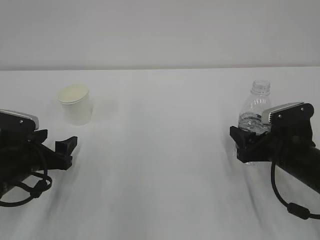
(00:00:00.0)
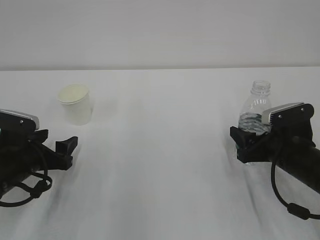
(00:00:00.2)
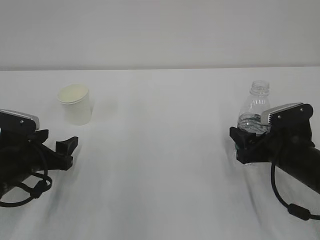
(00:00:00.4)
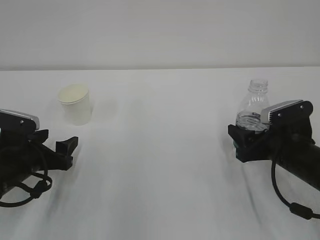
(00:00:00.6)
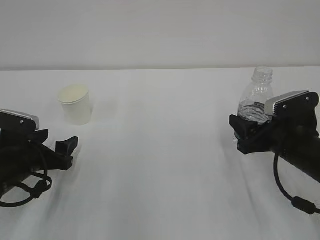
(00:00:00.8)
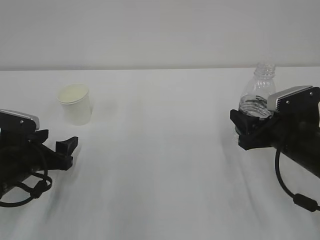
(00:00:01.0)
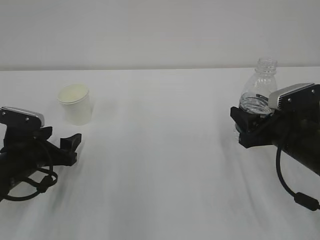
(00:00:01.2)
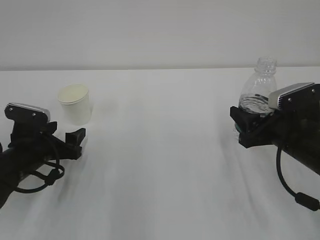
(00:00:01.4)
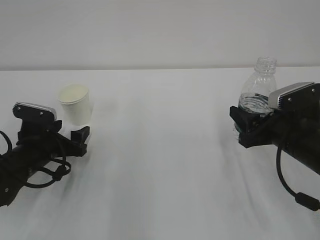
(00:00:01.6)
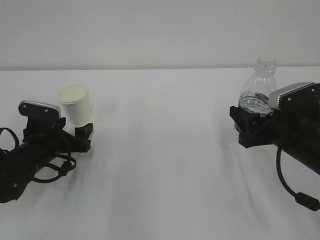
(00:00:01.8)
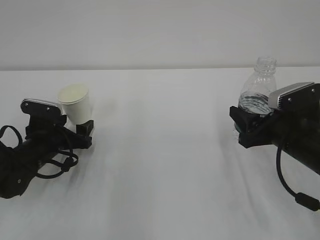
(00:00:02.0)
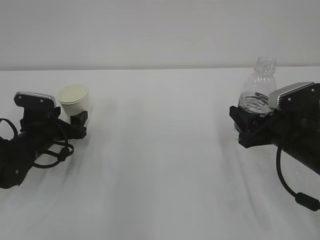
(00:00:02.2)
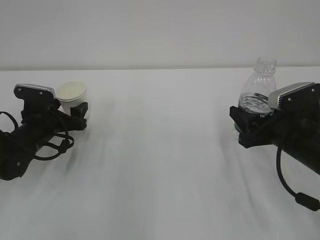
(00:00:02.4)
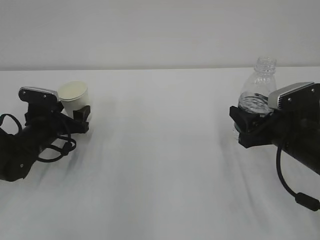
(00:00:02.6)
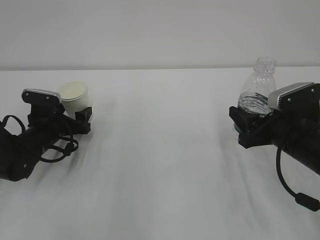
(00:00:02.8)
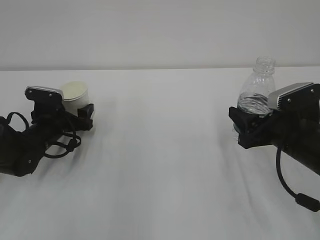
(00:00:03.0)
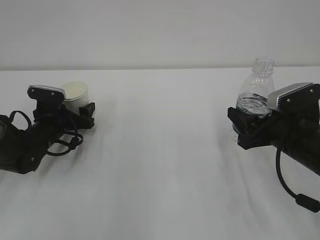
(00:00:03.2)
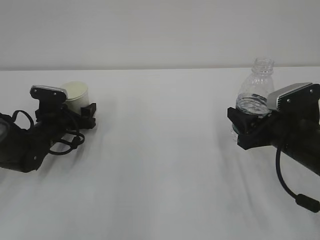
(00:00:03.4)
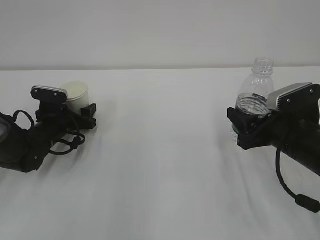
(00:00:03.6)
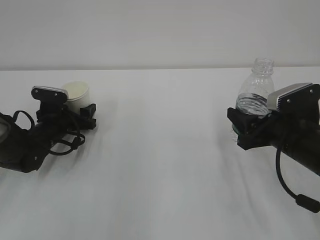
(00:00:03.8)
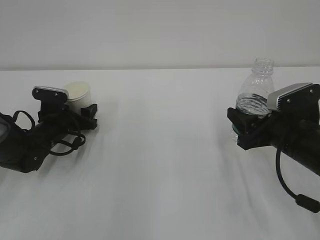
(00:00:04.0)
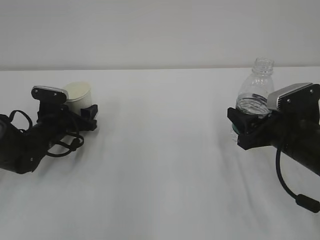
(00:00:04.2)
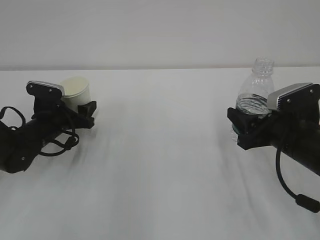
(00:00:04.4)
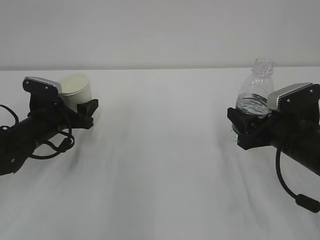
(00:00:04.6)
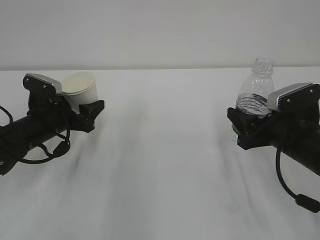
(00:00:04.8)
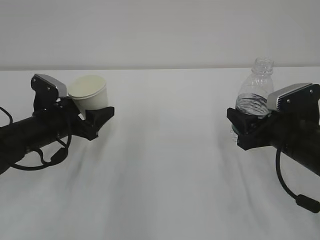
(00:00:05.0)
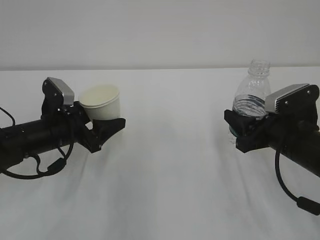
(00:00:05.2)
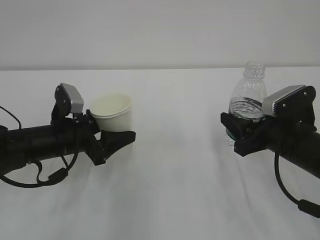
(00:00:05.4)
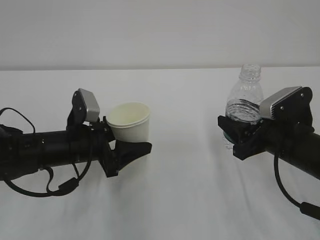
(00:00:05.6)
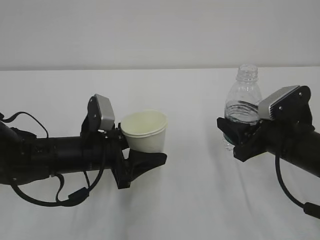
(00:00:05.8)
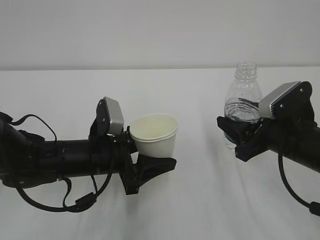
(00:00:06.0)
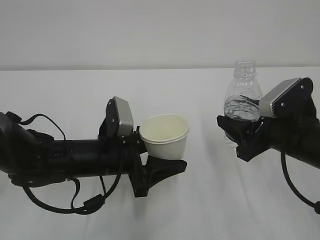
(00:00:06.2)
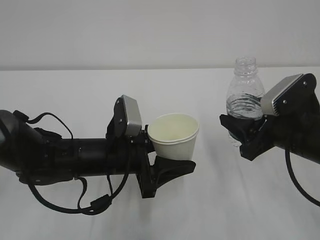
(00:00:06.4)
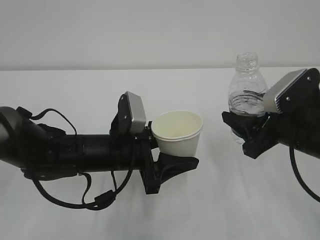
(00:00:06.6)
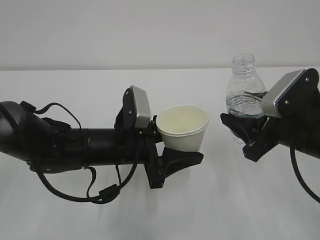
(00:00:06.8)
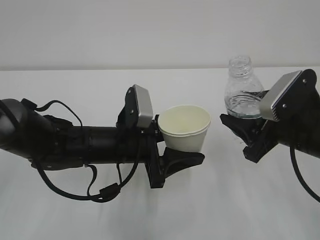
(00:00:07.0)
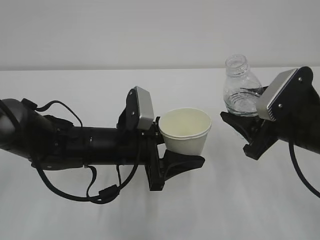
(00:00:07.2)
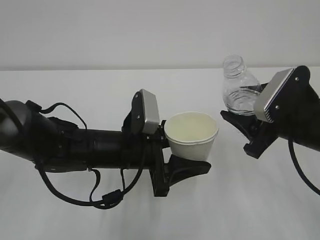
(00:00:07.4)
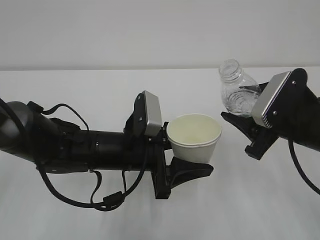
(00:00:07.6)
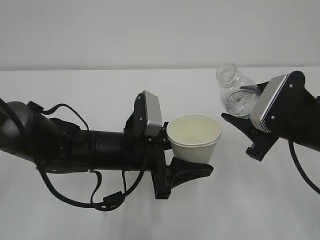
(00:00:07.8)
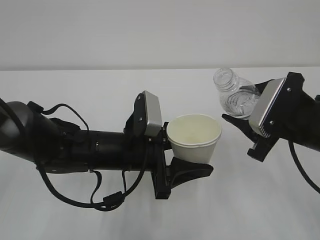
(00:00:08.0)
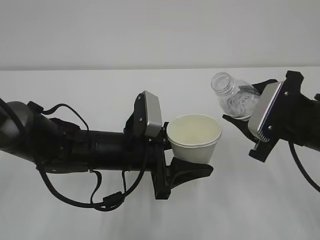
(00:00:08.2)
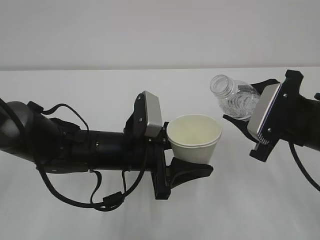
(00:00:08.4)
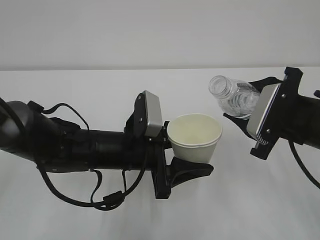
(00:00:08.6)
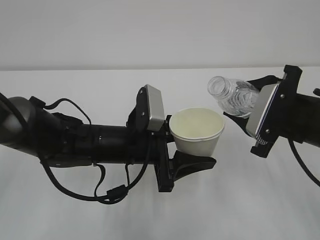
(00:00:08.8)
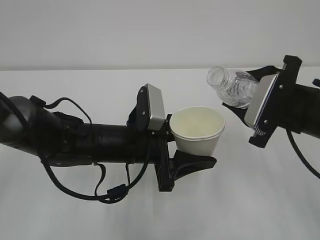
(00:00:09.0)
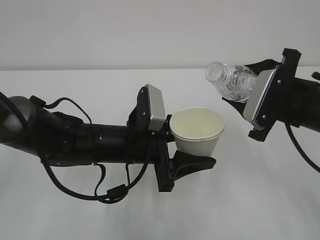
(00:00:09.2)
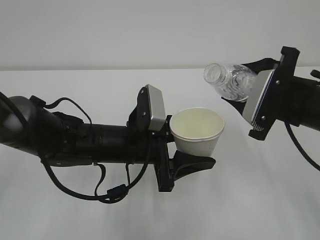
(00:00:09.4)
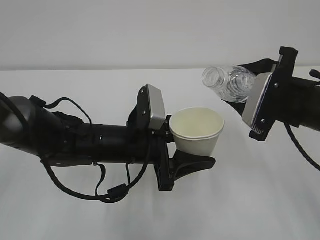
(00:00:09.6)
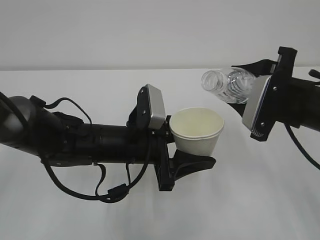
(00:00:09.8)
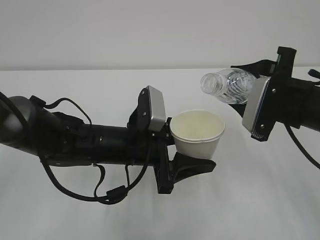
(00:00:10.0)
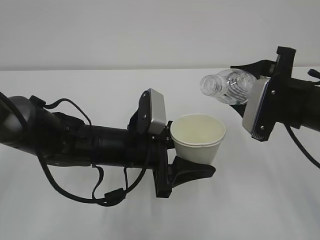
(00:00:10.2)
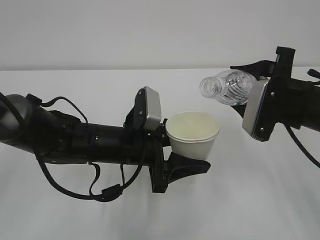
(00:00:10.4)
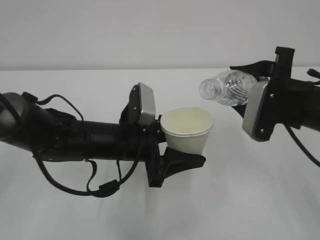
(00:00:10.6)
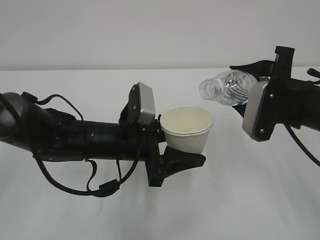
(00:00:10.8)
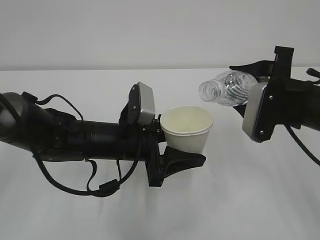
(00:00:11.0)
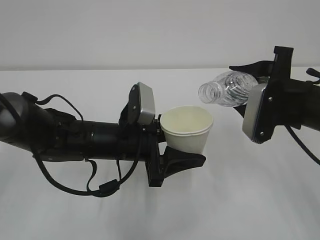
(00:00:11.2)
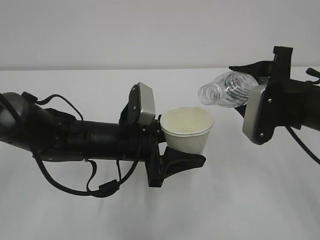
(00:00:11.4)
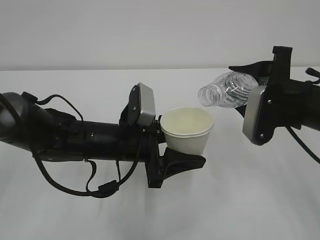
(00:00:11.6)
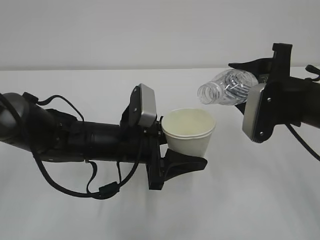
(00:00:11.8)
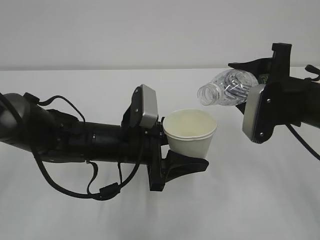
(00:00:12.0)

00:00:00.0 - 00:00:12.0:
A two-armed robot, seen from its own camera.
00:00:00.0 - 00:00:01.6: The left gripper changes place by some 5 cm.
00:00:01.6 - 00:00:03.0: The left gripper heads forward, covering about 10 cm.
00:00:03.0 - 00:00:04.4: The left gripper closes its fingers.
00:00:04.4 - 00:00:06.0: The left gripper is displaced to the right and backward by roughly 15 cm.
00:00:06.0 - 00:00:07.6: The left gripper travels to the right by some 5 cm.
00:00:09.0 - 00:00:10.4: There are only small adjustments of the grippers.
00:00:10.4 - 00:00:12.0: There are only small adjustments of the grippers.

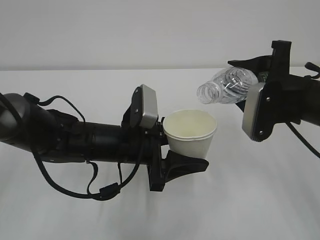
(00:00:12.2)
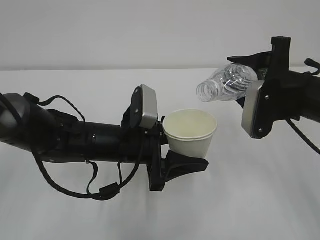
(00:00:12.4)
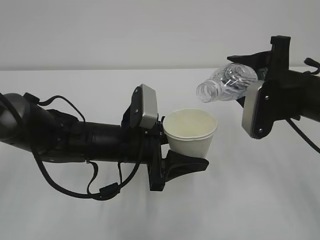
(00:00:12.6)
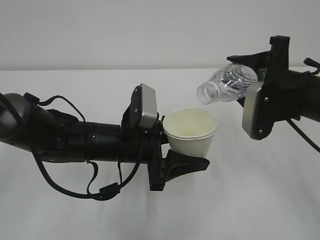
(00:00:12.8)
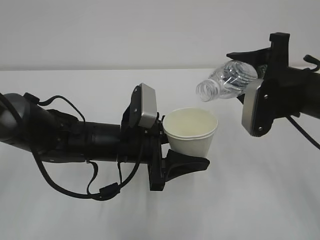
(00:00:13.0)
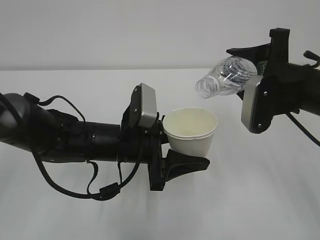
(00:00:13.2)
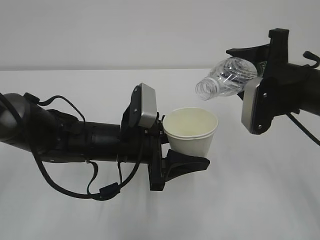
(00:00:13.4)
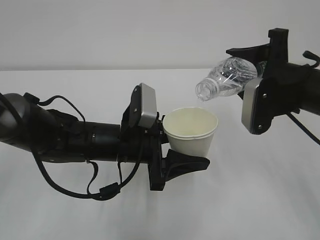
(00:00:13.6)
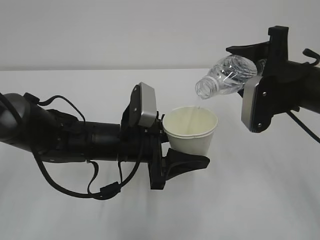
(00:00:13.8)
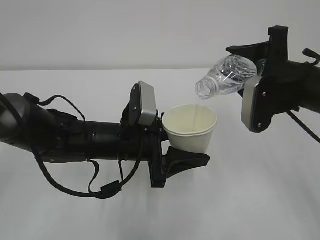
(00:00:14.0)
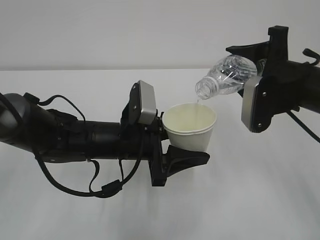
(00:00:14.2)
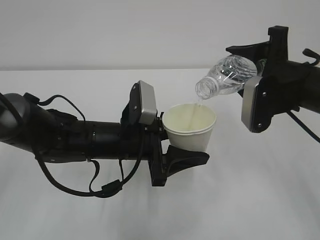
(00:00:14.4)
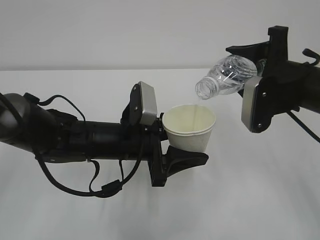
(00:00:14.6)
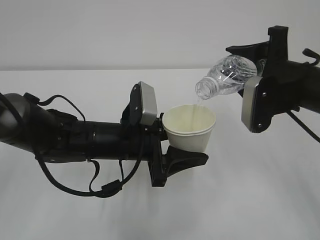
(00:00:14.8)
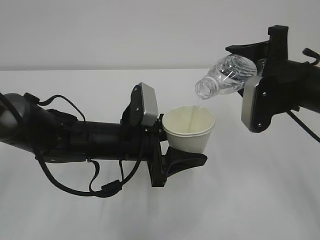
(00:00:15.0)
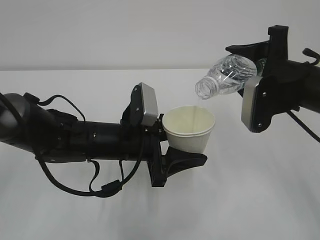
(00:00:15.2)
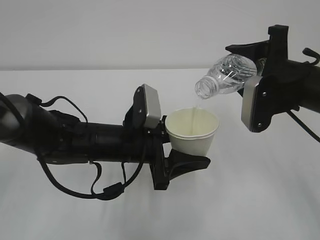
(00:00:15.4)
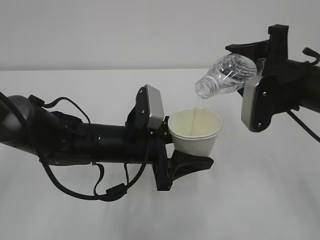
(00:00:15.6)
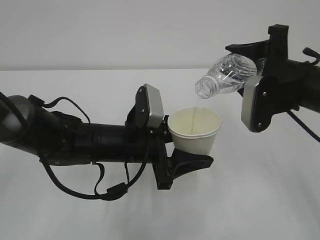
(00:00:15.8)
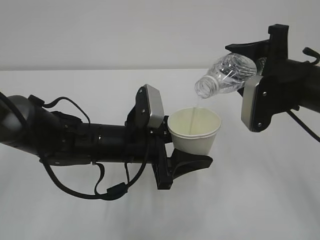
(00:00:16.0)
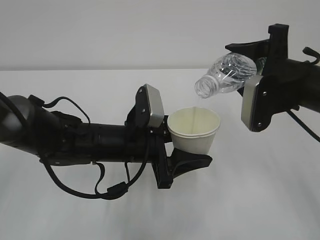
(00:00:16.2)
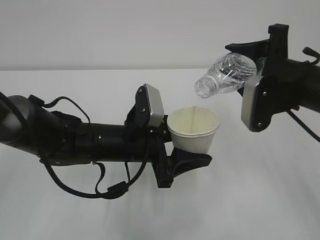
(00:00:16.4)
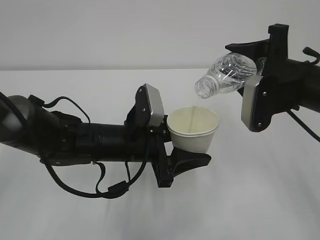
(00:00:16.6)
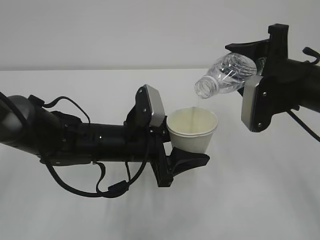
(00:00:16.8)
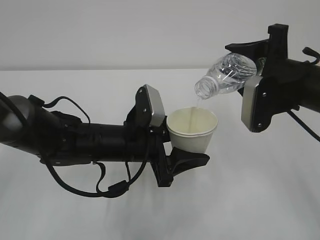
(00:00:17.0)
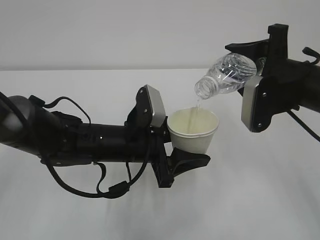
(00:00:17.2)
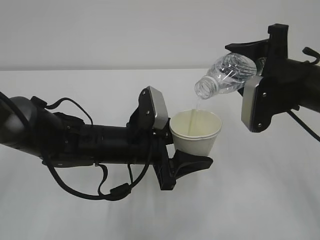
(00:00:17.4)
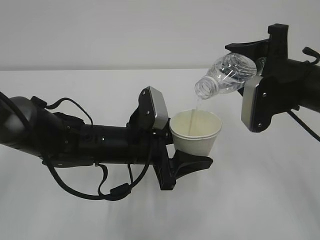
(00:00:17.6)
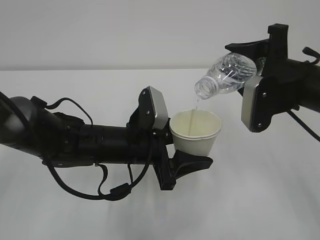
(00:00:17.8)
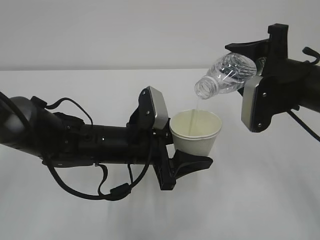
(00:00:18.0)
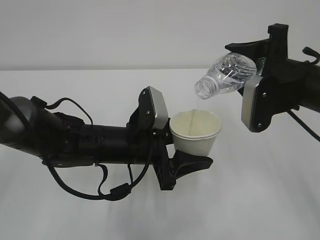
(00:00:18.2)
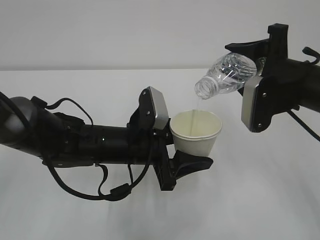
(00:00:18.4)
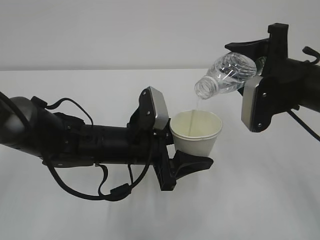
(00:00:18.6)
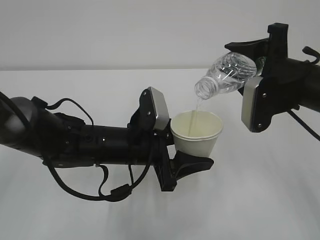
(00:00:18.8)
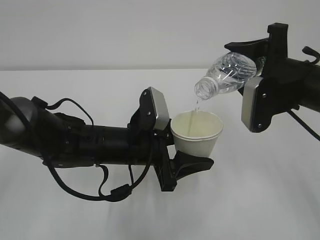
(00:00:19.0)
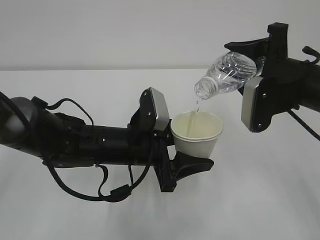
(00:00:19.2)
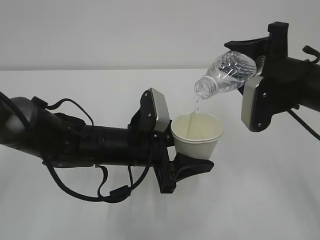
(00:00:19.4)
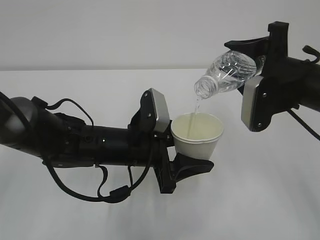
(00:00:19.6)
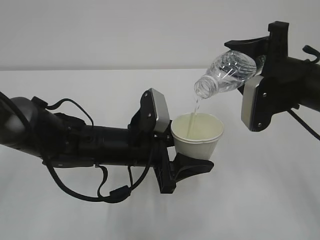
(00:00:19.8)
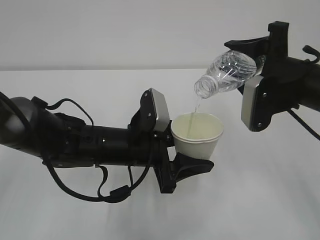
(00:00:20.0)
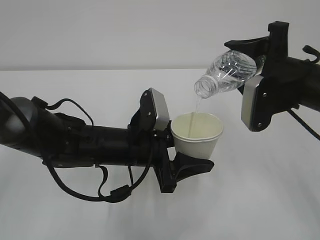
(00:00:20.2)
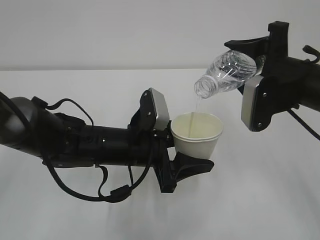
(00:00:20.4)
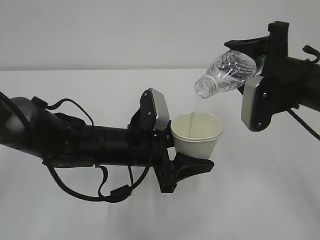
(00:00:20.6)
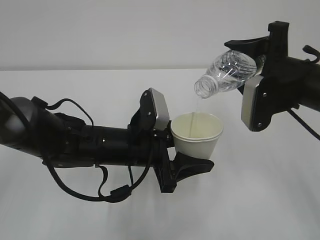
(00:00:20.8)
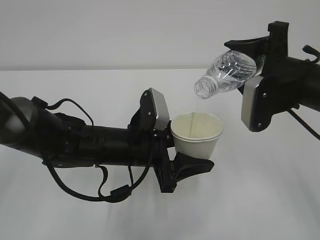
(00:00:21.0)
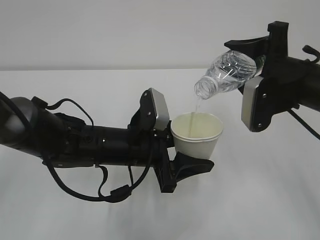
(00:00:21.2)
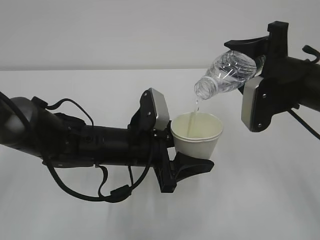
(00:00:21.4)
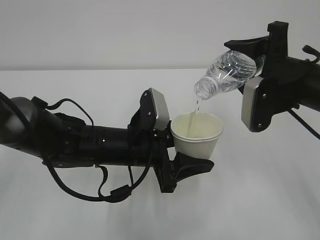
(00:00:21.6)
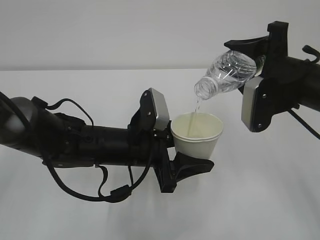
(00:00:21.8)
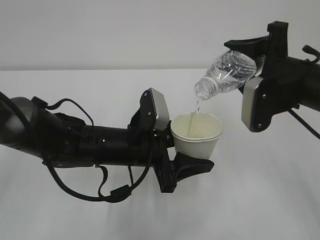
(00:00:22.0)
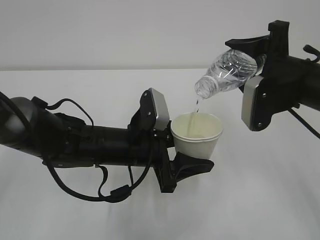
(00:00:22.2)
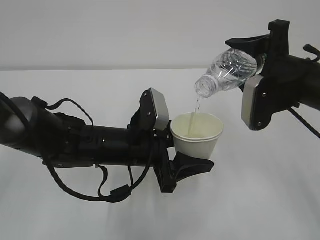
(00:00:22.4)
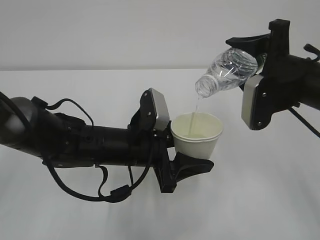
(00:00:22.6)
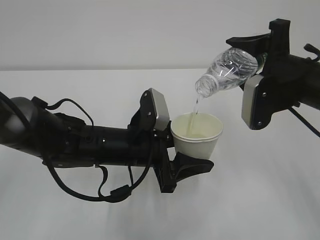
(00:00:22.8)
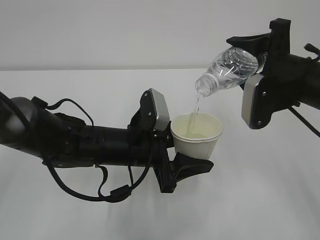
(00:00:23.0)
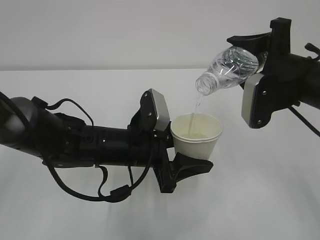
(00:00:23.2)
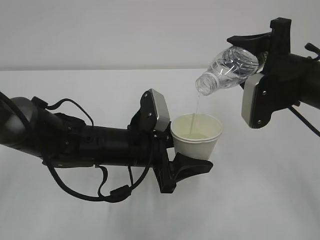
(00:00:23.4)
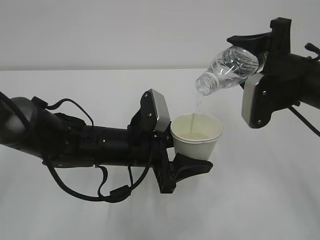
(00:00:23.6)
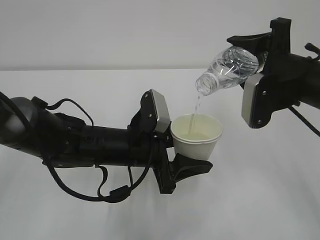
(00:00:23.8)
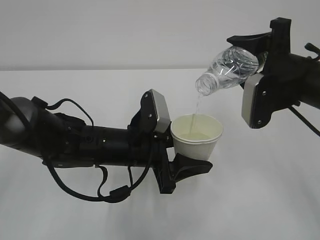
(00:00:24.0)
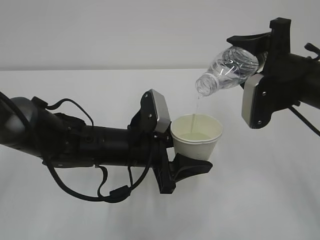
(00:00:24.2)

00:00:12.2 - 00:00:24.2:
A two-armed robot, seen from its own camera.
00:00:12.2 - 00:00:13.8: The grippers make only small movements.
00:00:13.8 - 00:00:15.2: The two grippers keep their place.
00:00:15.2 - 00:00:18.2: The two grippers keep their place.
00:00:18.2 - 00:00:22.6: Both grippers stay about where they are.
00:00:22.6 - 00:00:24.2: Both grippers stay put.
